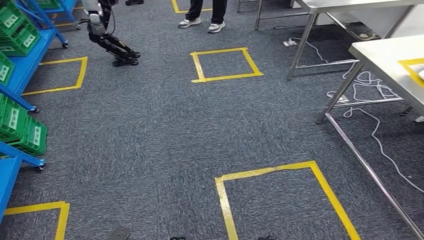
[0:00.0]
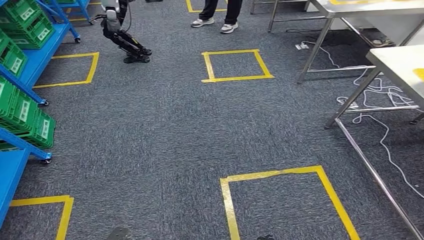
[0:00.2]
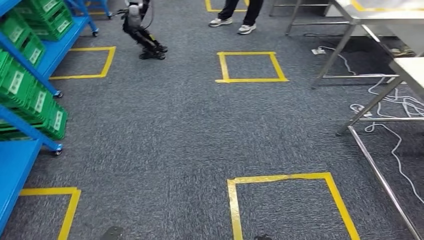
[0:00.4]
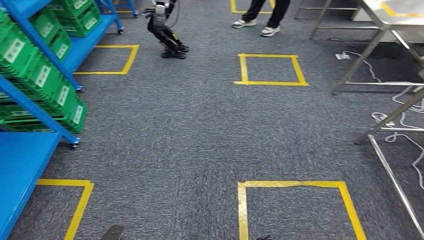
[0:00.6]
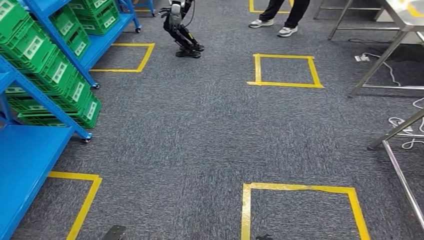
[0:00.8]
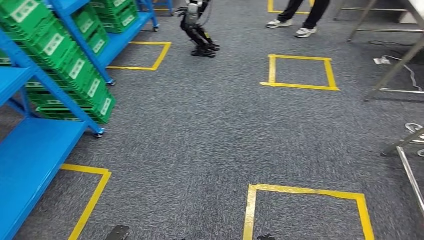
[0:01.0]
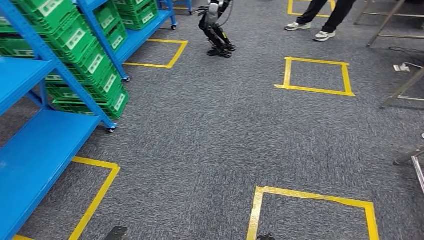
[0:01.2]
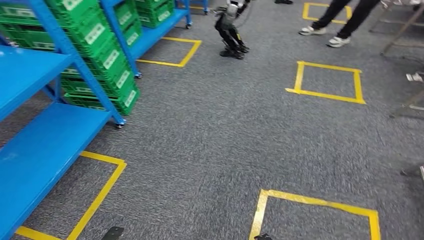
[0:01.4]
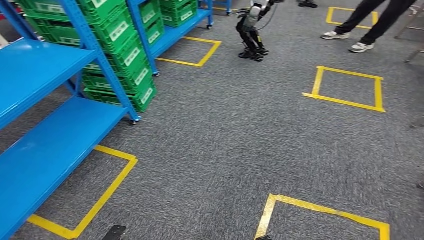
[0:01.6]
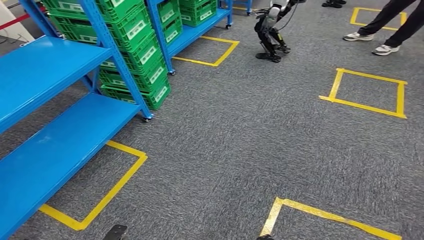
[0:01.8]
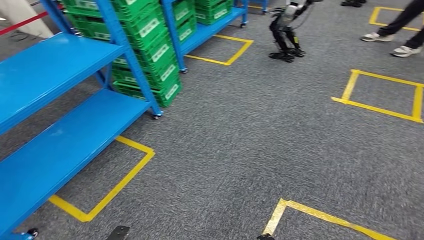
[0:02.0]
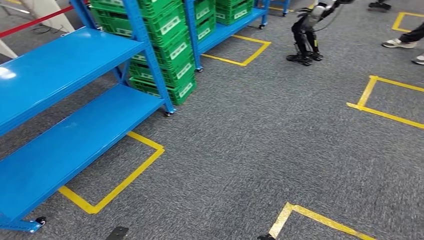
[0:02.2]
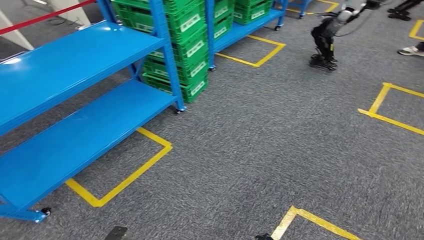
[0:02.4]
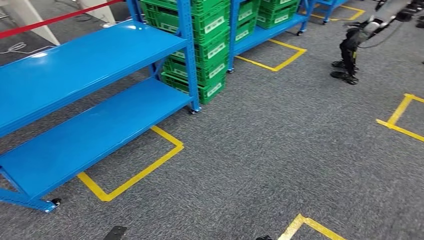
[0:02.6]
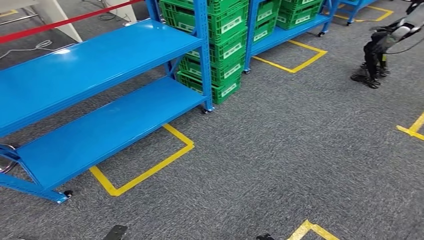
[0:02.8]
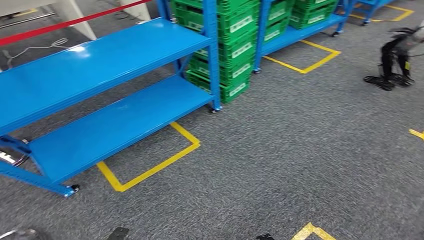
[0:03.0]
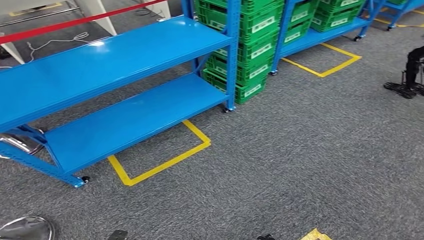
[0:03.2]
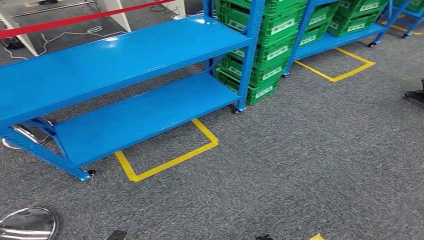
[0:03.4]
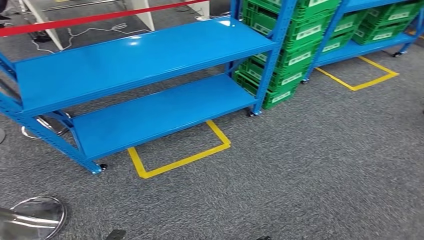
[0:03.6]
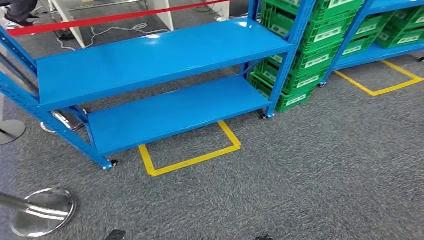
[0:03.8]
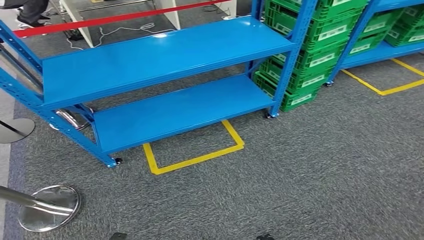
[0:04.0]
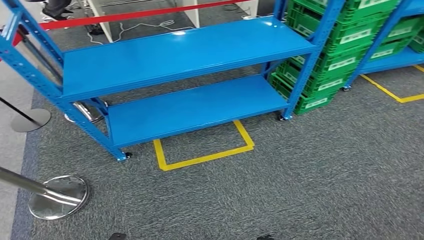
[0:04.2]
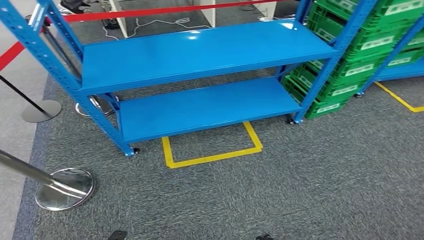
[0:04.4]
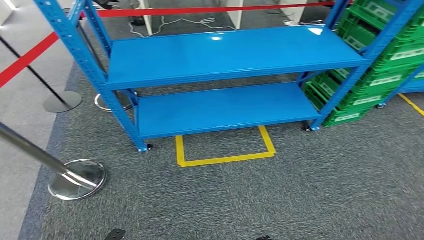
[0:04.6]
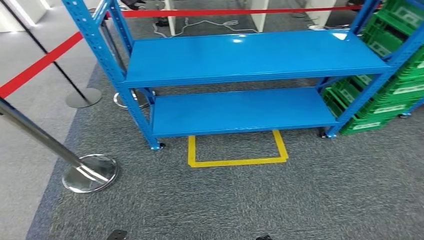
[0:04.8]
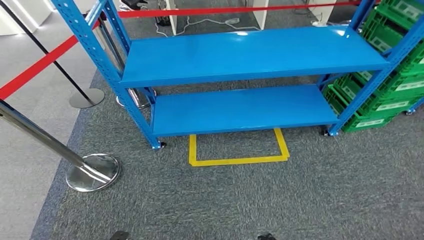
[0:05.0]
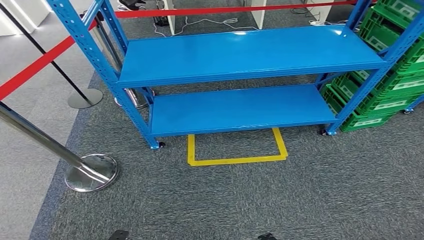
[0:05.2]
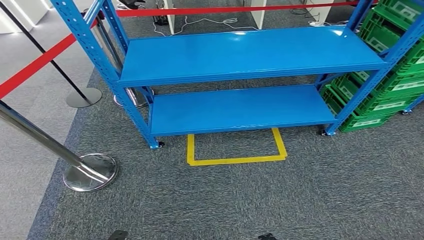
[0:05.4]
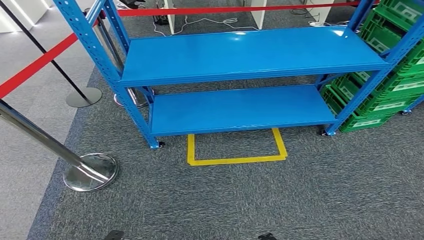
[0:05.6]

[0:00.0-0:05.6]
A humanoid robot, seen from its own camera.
Step, 0:00.0 to 0:05.6: Return to the initial position at the workbench.
